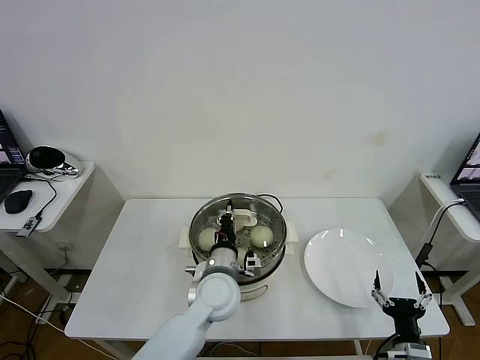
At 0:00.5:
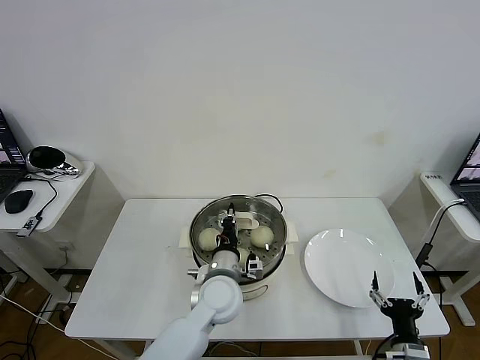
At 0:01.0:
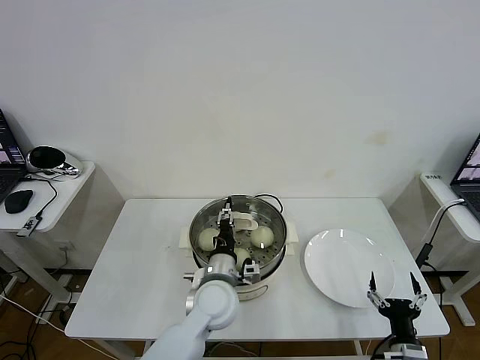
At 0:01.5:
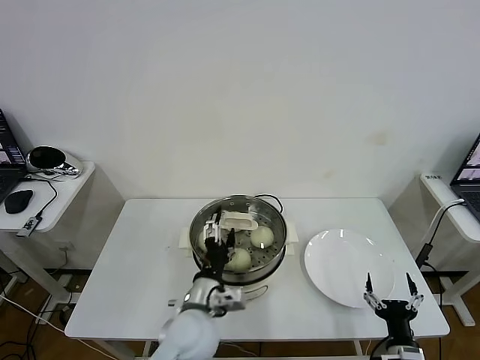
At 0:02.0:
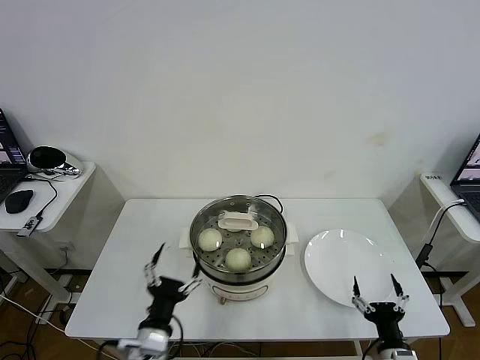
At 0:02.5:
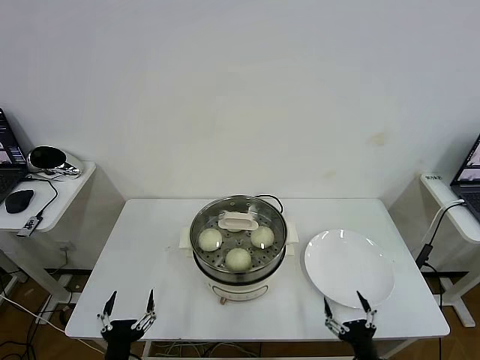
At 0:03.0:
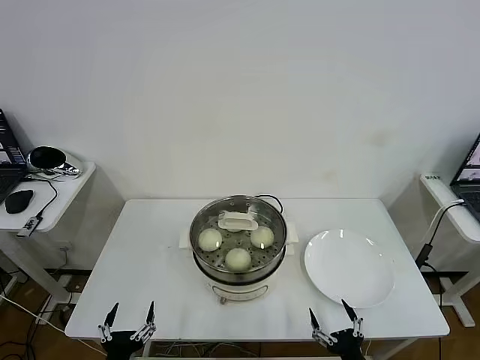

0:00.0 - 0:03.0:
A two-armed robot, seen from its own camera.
Task of the whole recording: take steamed baozi put them in steamer then cover it.
0:00.0 - 0:01.5: The left gripper heads backward, covering about 5 cm, and opens up.
0:01.5 - 0:03.0: The right gripper goes roughly 5 cm to the left; the left gripper heads to the left, backward and downward, covering roughly 25 cm.

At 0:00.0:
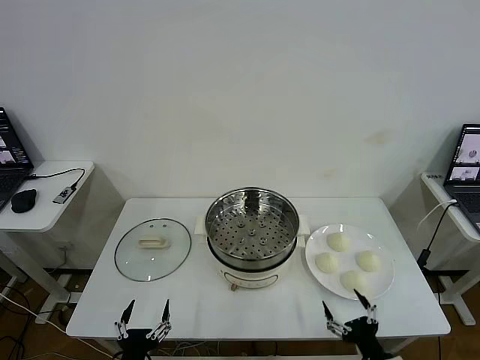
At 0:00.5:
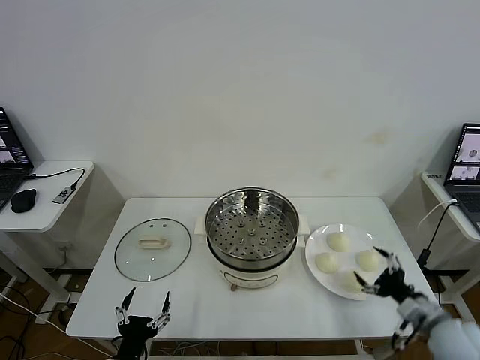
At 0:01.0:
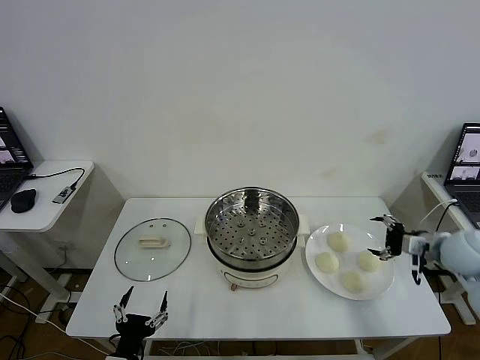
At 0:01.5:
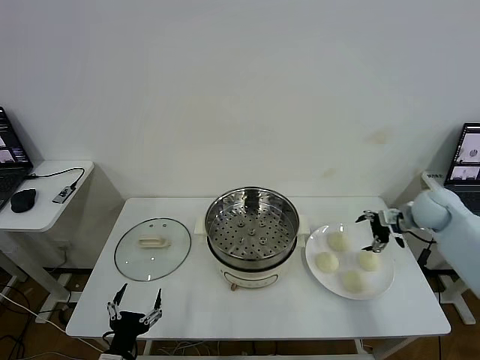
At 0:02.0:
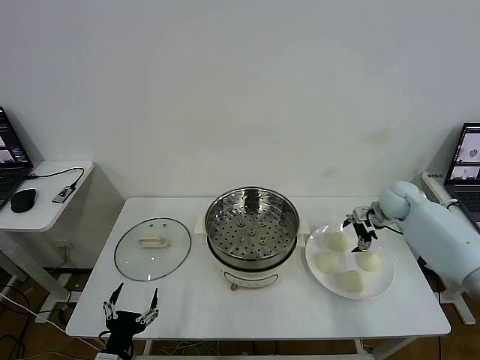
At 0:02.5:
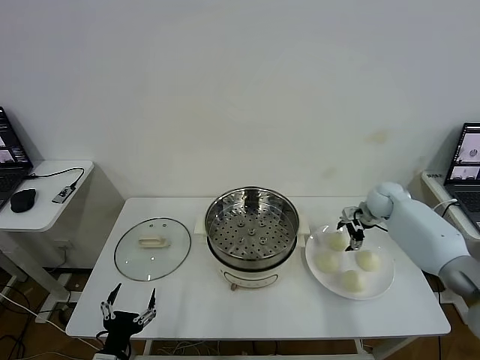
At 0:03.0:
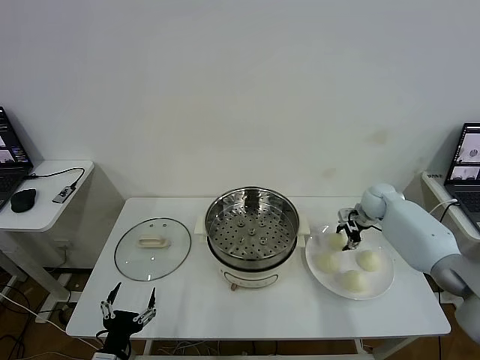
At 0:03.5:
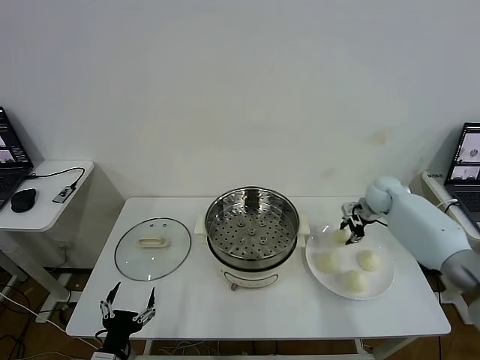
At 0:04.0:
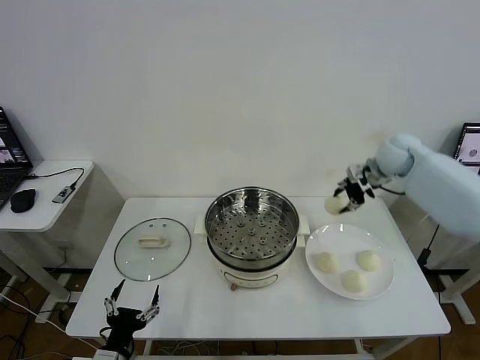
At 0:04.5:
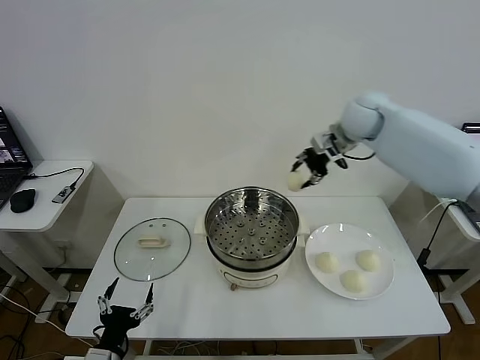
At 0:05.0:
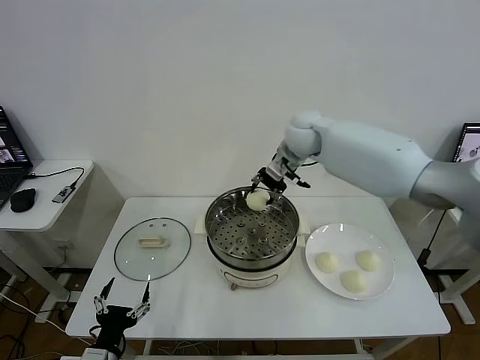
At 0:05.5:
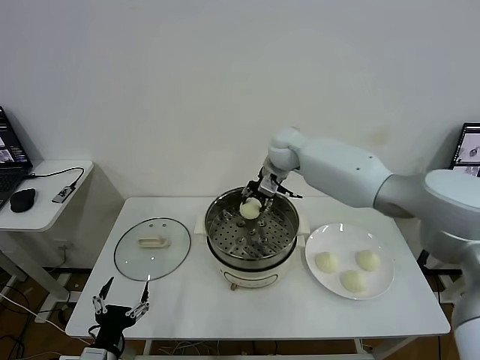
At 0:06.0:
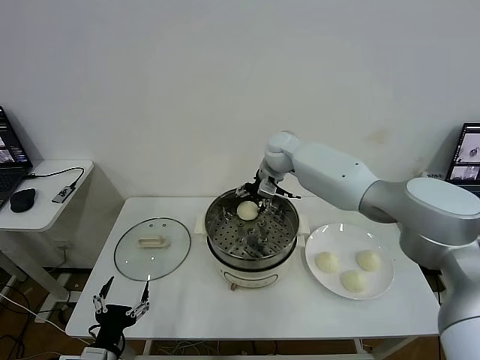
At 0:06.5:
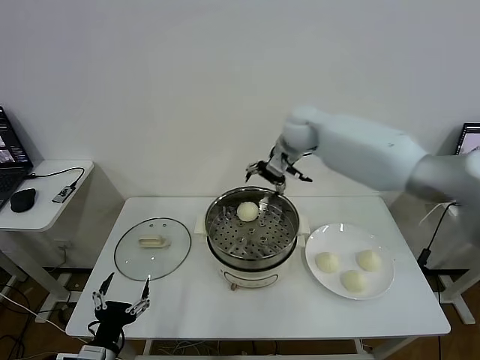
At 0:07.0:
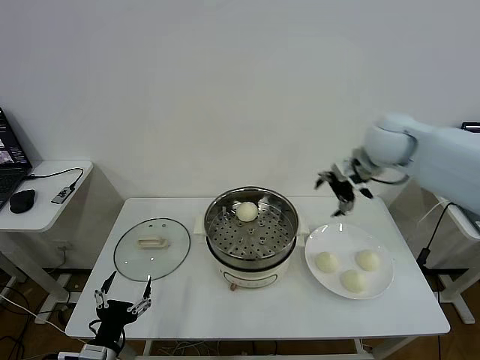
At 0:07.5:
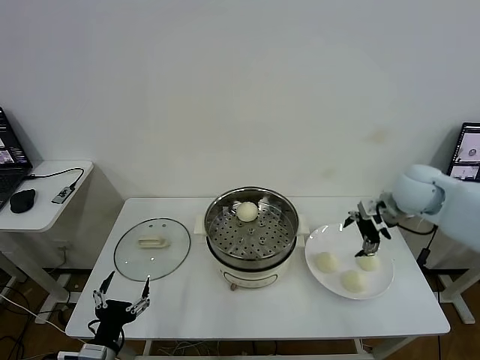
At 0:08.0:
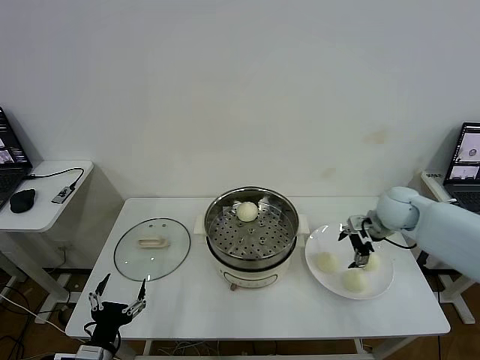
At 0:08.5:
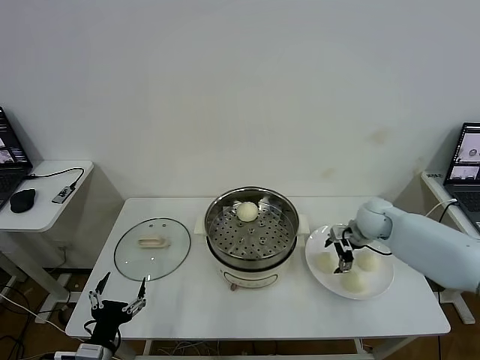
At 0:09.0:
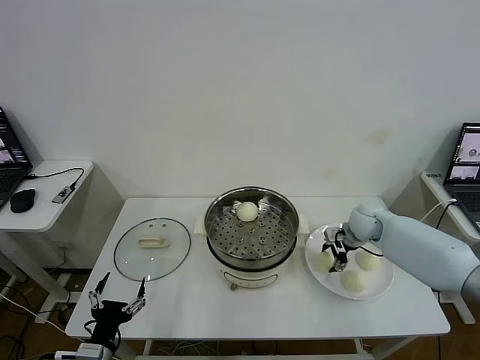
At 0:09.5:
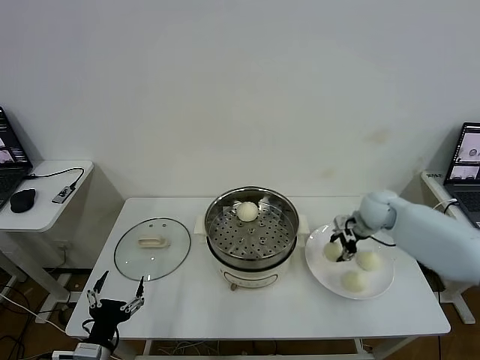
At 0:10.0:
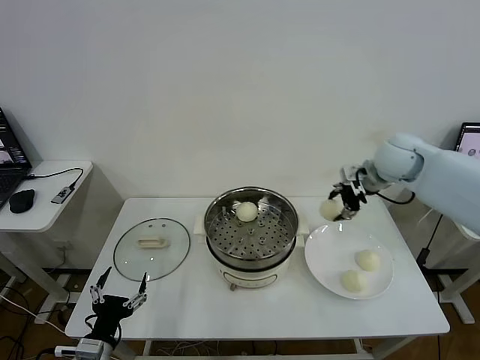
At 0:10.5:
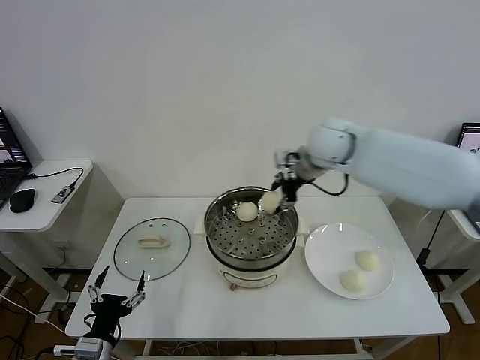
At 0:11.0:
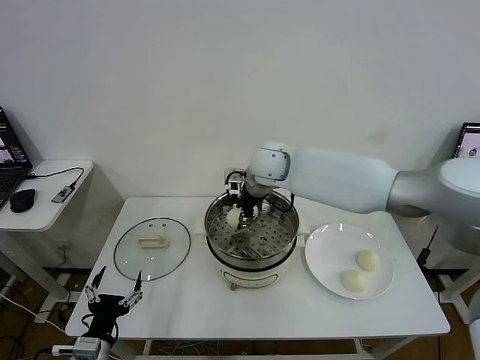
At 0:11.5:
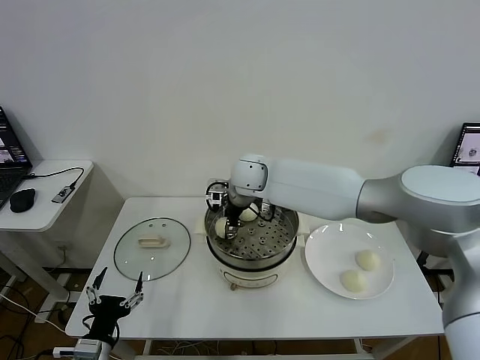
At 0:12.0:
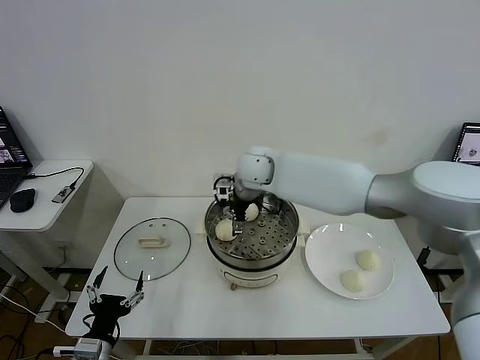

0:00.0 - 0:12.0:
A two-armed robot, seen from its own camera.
Task of the whole recording: take steamed baozi put them in steamer then cover it.
Step, 0:00.0 - 0:03.0: Grasp the baozi in the plate with right gripper.
Step, 0:03.5 - 0:06.0: Place the baozi on the steamer with right gripper.
Step, 0:06.5 - 0:09.0: Grasp the baozi in the plate with right gripper.
Step, 0:09.5 - 0:12.0: Place the baozi on the steamer with right gripper.
0:02.0 - 0:04.0: The right gripper goes approximately 15 cm upward, and closes.
0:04.0 - 0:06.0: The right gripper shifts roughly 25 cm to the left, and opens its fingers.
0:06.0 - 0:08.0: The right gripper goes roughly 30 cm to the right and backward.
0:08.0 - 0:10.0: The right gripper travels upward by roughly 15 cm, and closes up.
0:10.0 - 0:12.0: The right gripper travels to the left by approximately 25 cm, and opens up.

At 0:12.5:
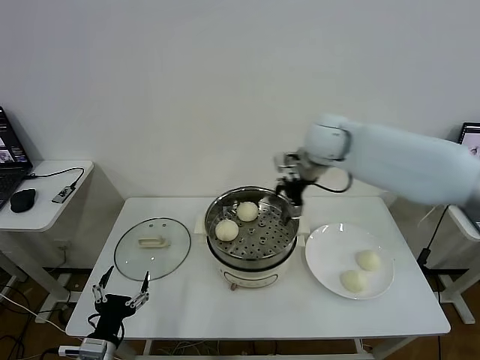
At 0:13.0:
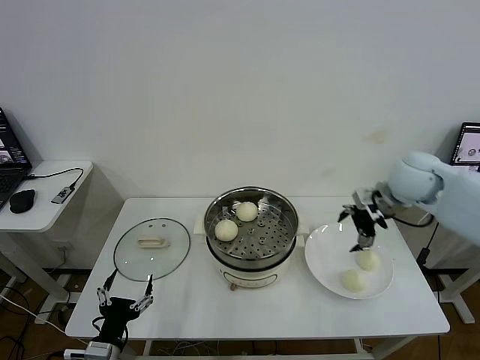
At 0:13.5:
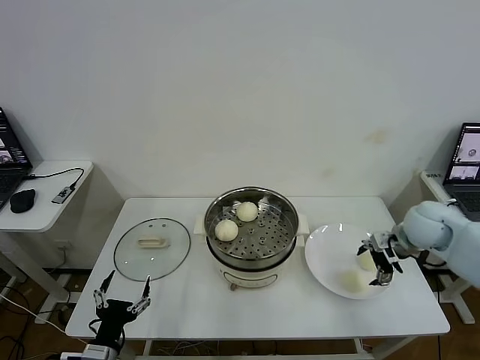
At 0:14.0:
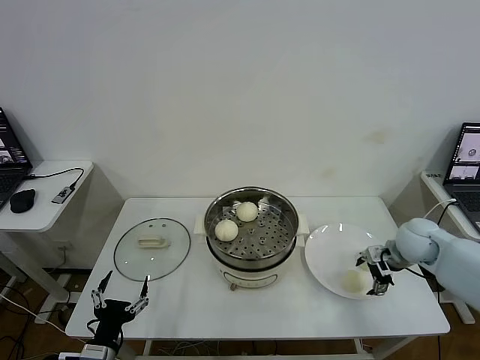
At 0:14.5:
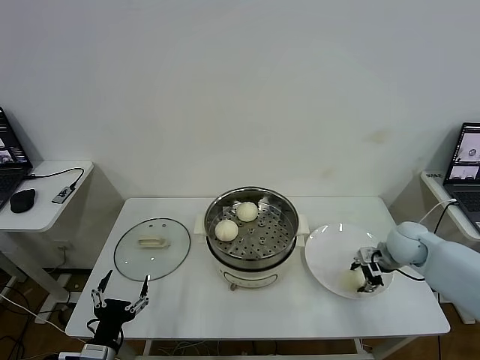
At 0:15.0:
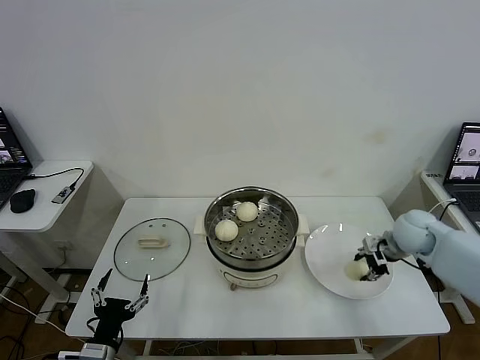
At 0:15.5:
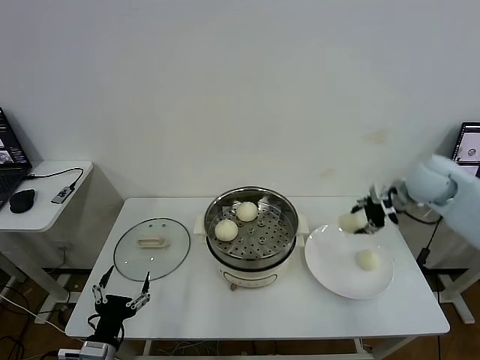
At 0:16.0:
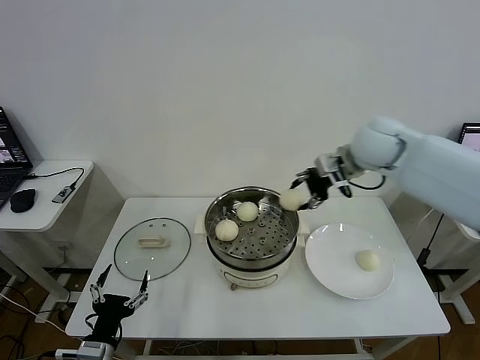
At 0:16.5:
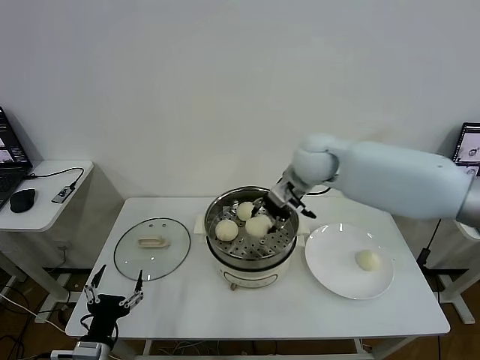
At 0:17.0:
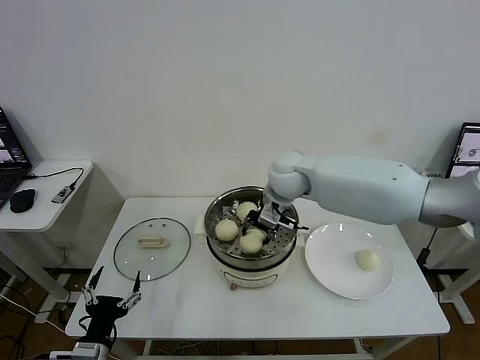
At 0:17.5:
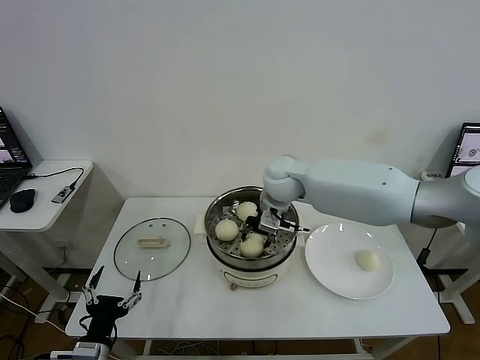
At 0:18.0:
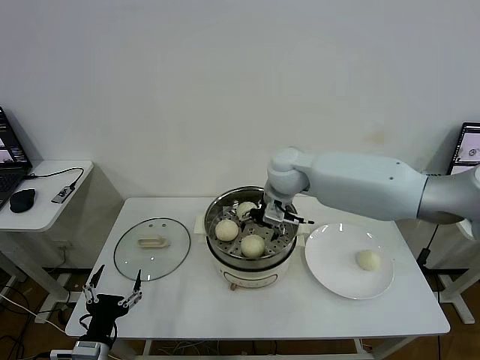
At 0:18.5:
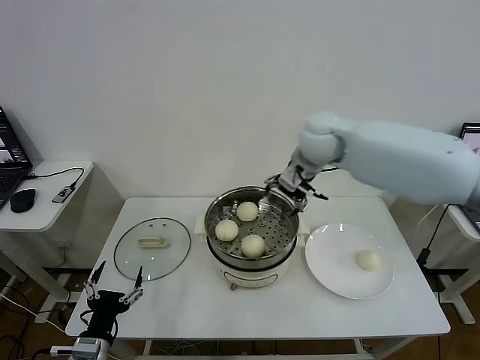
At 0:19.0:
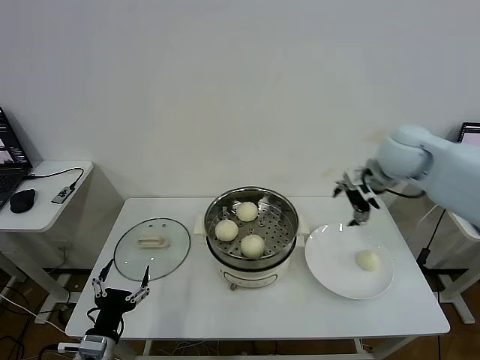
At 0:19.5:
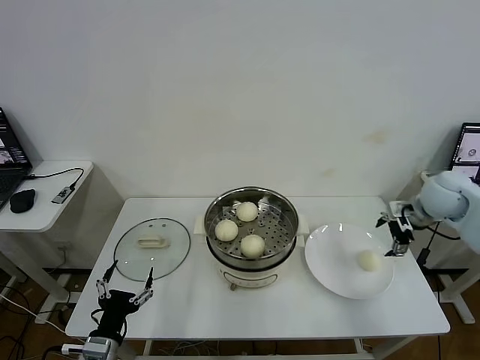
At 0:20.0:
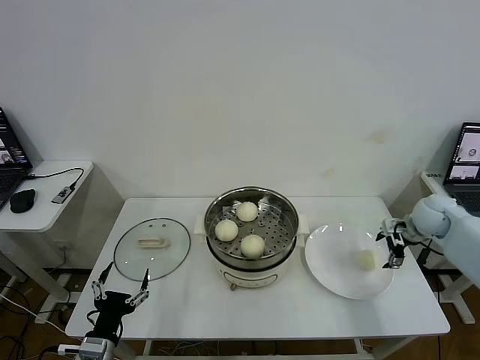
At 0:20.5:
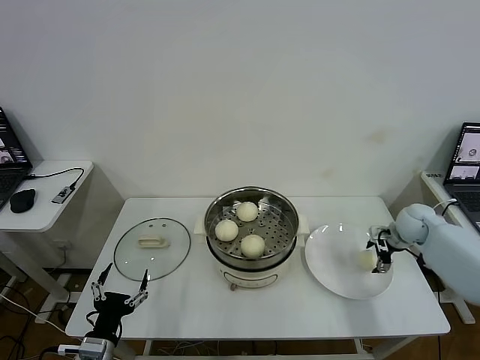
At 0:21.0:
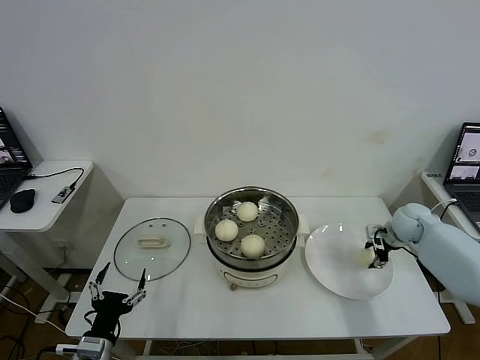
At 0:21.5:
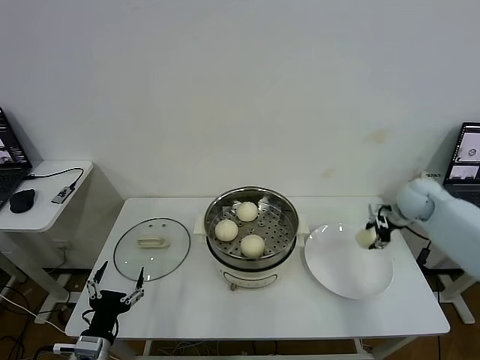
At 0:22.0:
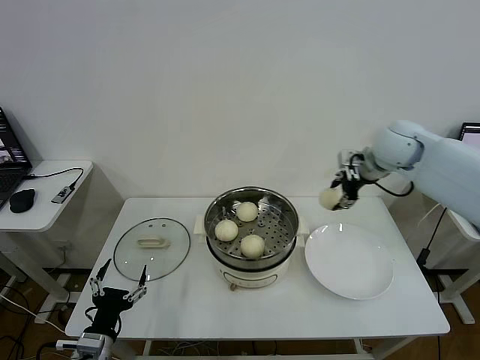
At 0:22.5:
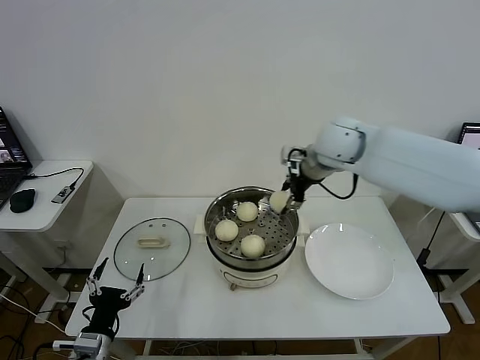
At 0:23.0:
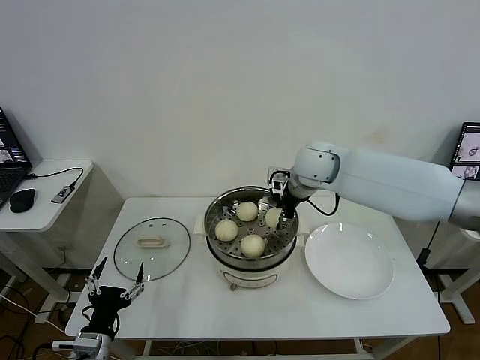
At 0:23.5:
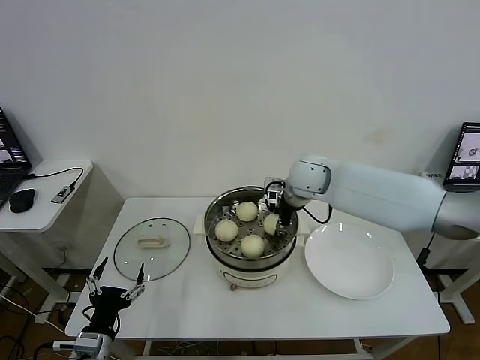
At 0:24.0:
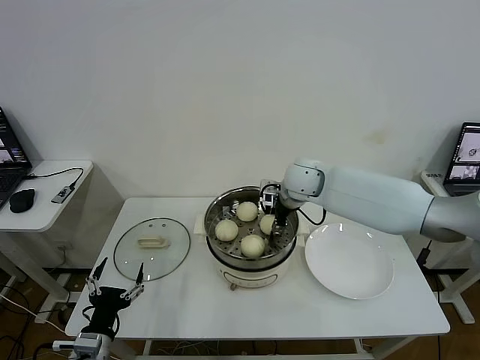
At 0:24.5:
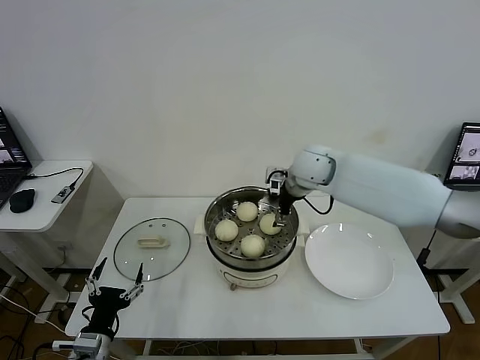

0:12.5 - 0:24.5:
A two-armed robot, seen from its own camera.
Task of the whole recording: take steamed baozi put them in steamer then cover it.
Step, 0:12.5 - 0:14.5: Grasp the baozi in the plate with right gripper.
Step, 0:15.0 - 0:18.0: Place the baozi on the steamer with right gripper.
Step, 0:18.5 - 0:20.5: Grasp the baozi in the plate with right gripper.
Step, 0:21.0 - 0:24.5: Place the baozi on the steamer with right gripper.
0:12.5 - 0:14.5: The right gripper goes some 30 cm downward, to the right and backward, and closes up.
0:14.5 - 0:16.5: The right gripper is displaced to the left and upward by approximately 30 cm.
0:16.5 - 0:18.5: The right gripper heads upward, covering approximately 5 cm, and opens its fingers.
0:18.5 - 0:20.5: The right gripper is displaced to the right and downward by roughly 35 cm.
0:20.5 - 0:22.5: The right gripper goes roughly 35 cm to the left and upward, and closes its fingers.
0:22.5 - 0:24.5: The right gripper travels downward by about 5 cm, and opens.
